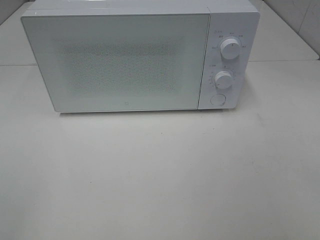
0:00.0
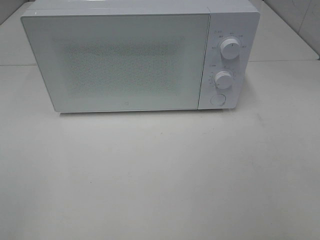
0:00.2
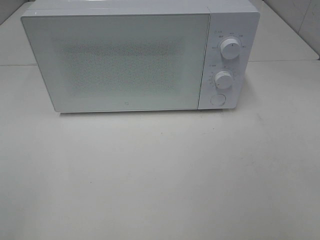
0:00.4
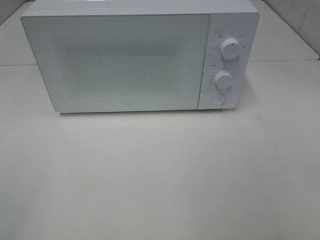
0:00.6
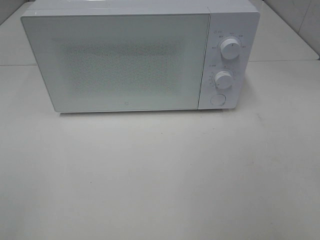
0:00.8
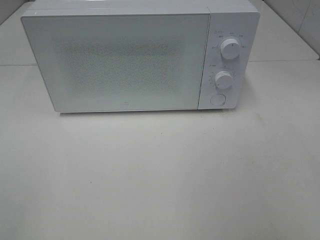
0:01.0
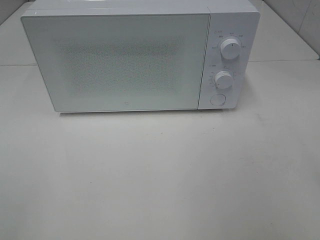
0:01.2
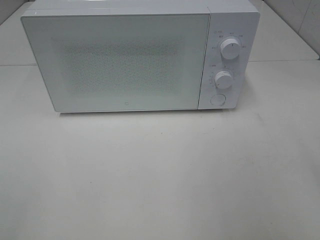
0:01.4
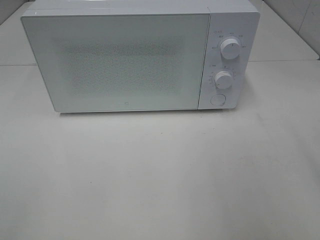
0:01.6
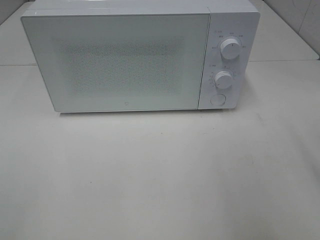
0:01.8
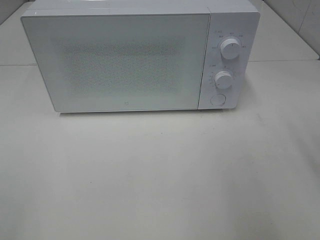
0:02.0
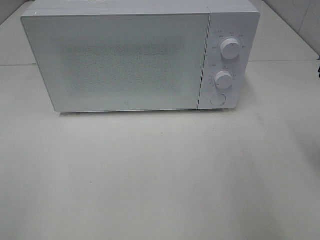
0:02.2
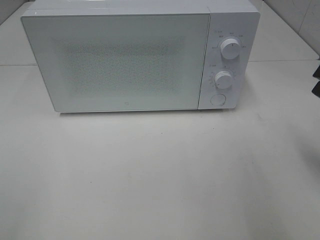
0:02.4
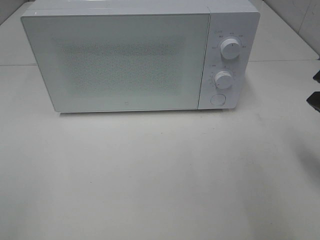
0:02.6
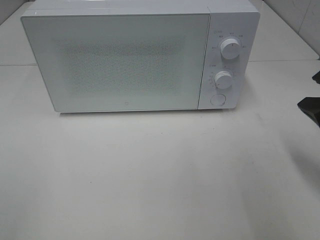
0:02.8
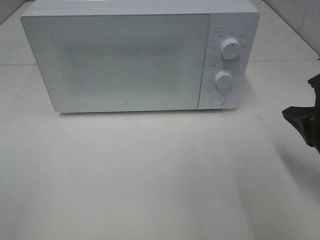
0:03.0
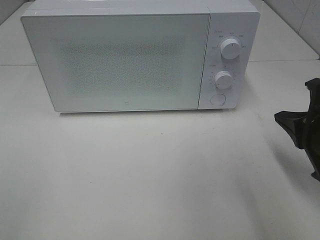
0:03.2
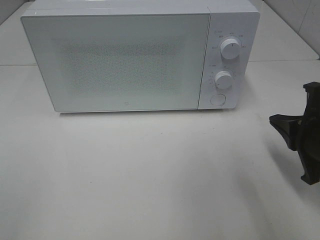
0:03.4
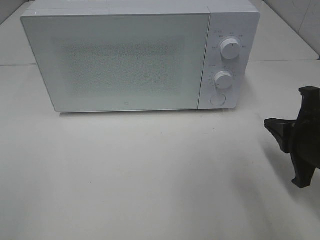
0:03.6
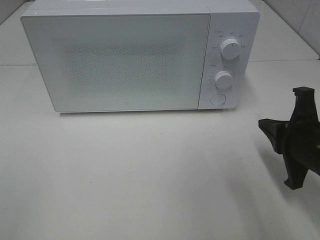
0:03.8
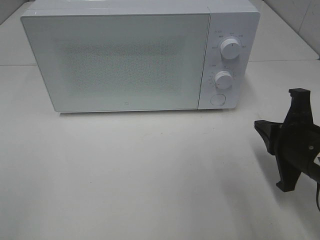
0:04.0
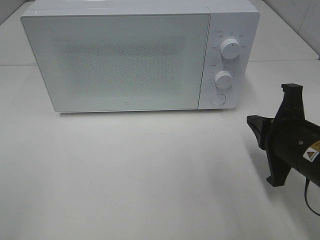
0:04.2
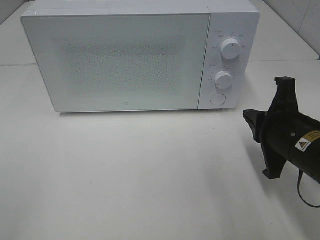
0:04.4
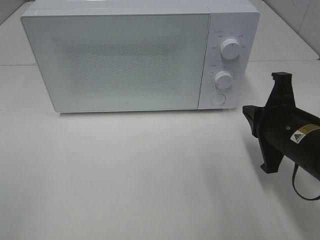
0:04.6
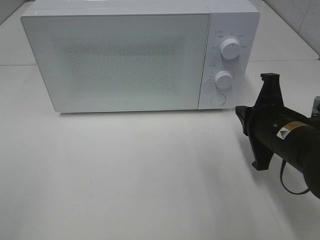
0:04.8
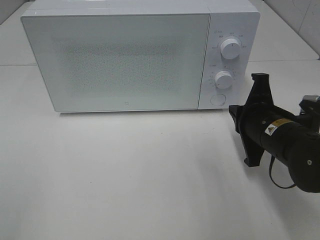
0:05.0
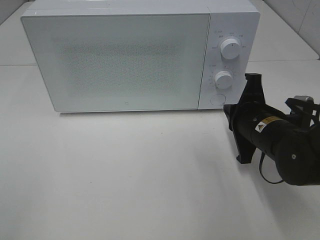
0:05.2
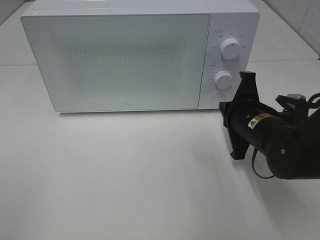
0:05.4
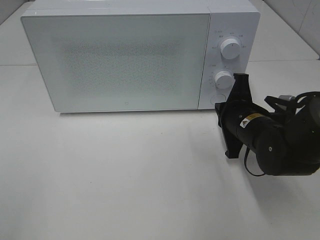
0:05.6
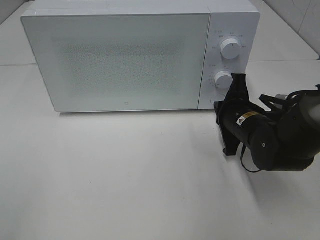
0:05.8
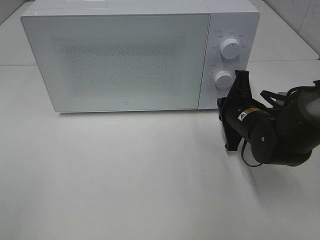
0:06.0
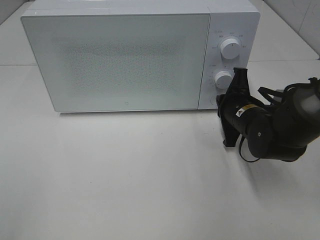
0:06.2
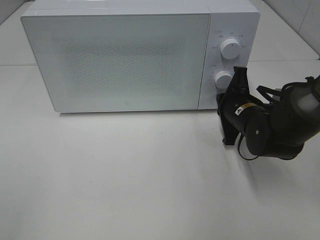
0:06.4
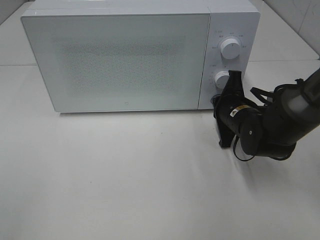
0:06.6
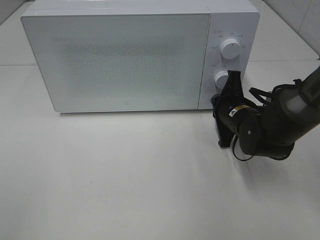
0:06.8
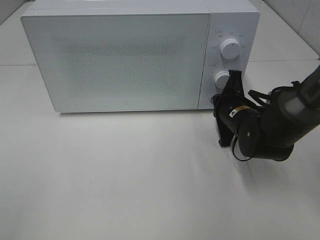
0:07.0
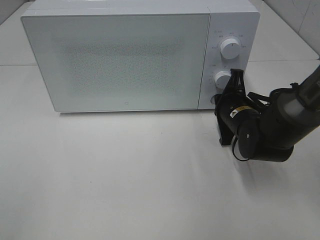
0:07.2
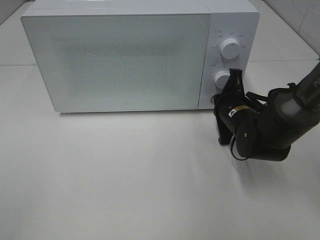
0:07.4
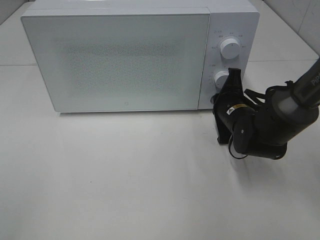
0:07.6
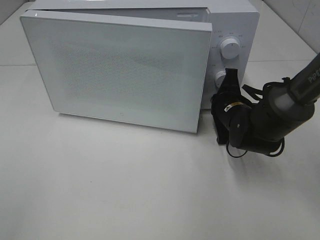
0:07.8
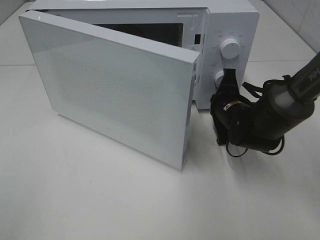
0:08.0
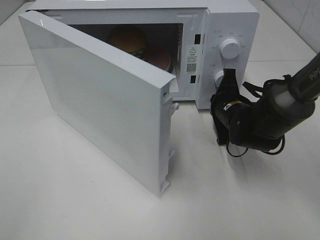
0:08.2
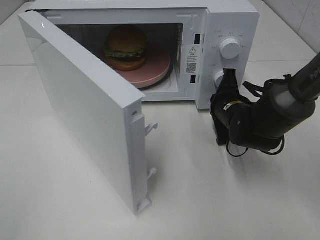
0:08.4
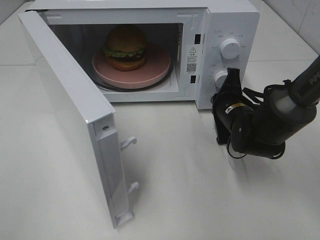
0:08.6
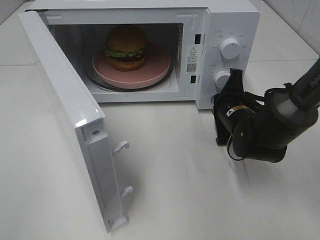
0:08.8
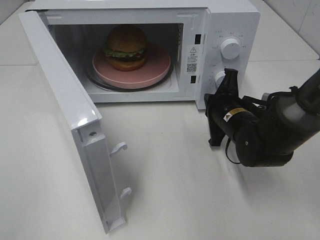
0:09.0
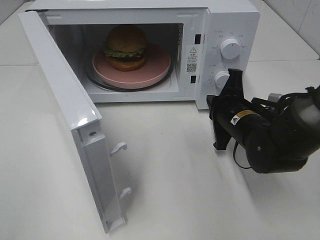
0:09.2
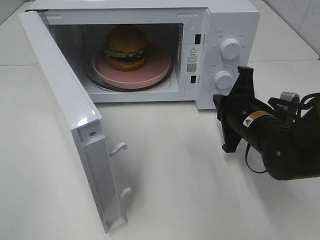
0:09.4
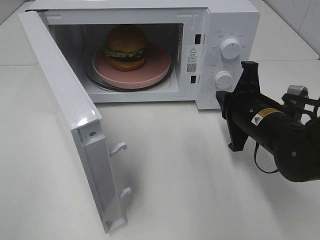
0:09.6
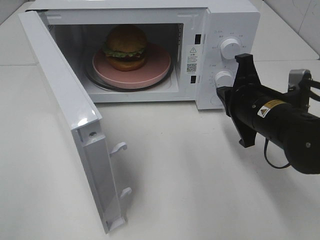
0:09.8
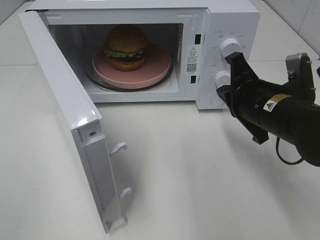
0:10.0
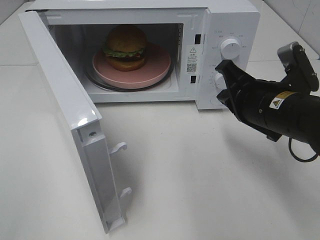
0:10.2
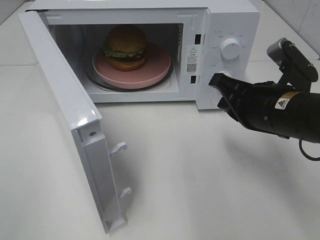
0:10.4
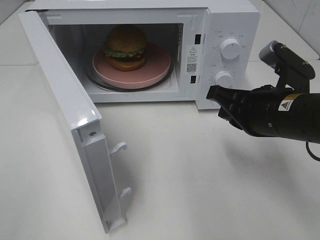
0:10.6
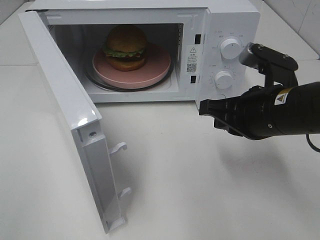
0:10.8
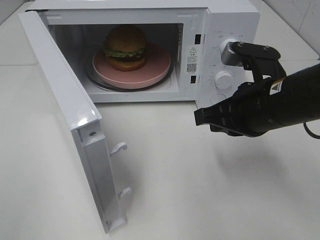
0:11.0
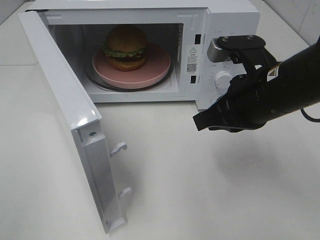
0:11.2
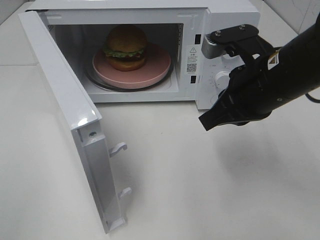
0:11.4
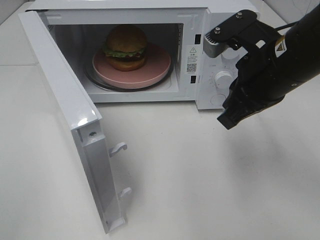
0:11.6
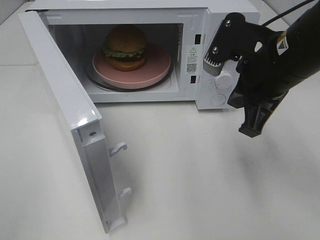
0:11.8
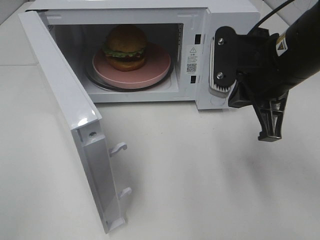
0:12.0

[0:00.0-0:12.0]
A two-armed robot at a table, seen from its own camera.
Task of the whole recording: Heat the burger.
Step, 0:00.0 to 0:09.0: Right hand: press the switch.
0:01.6 to 0:03.0: The right gripper heads downward and forward, covering about 15 cm, and closes its fingers.
0:03.0 to 0:04.4: The right gripper goes about 5 cm to the left.
0:04.4 to 0:06.0: The right gripper heads forward and downward, covering approximately 10 cm.
0:06.0 to 0:07.6: There are only small adjustments of the grippers.
0:09.0 to 0:10.4: The right gripper is displaced upward and backward by roughly 15 cm.
0:10.4 to 0:12.0: The right gripper goes some 5 cm upward.

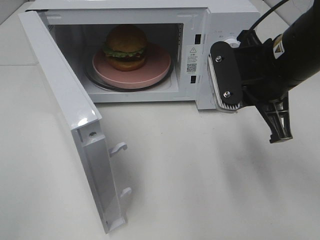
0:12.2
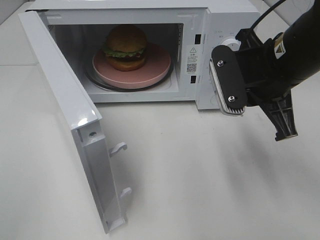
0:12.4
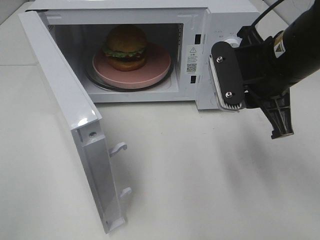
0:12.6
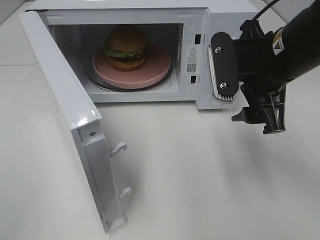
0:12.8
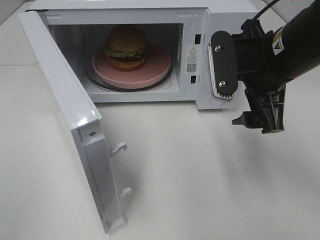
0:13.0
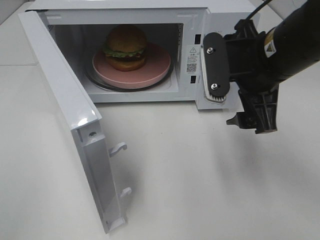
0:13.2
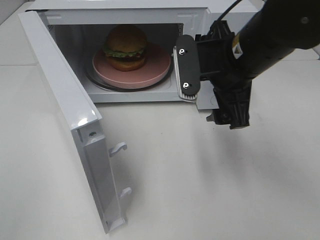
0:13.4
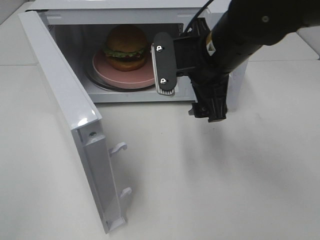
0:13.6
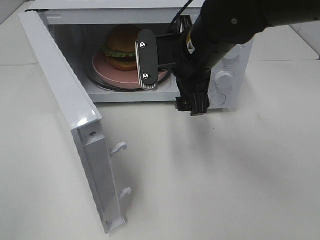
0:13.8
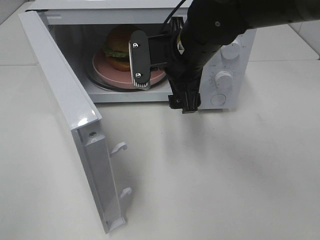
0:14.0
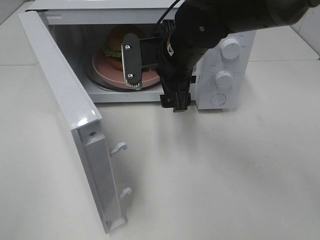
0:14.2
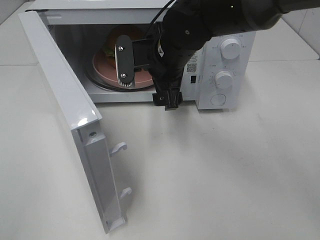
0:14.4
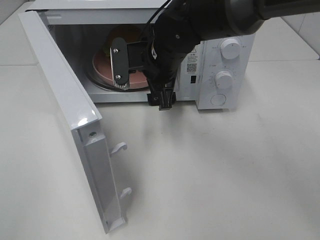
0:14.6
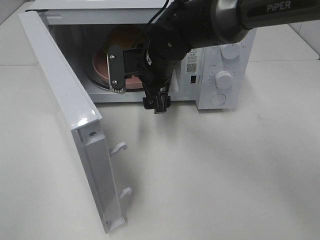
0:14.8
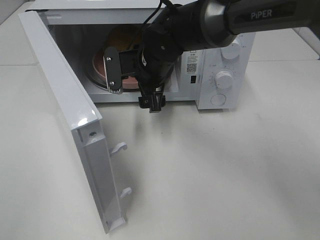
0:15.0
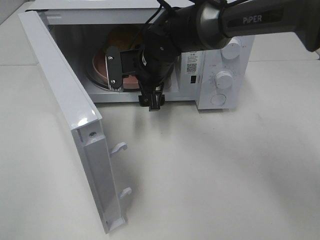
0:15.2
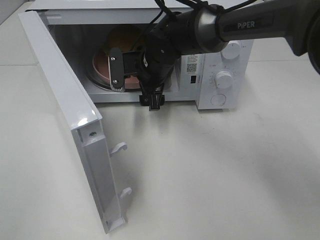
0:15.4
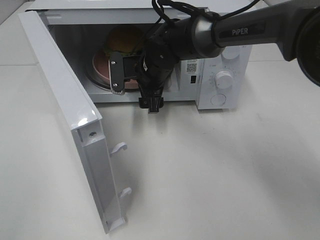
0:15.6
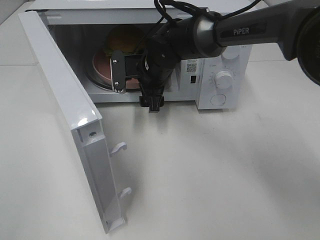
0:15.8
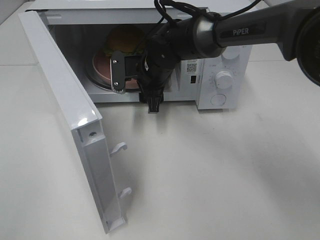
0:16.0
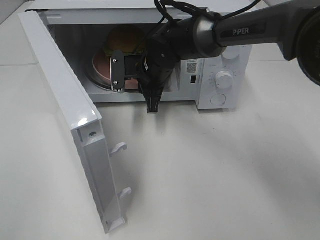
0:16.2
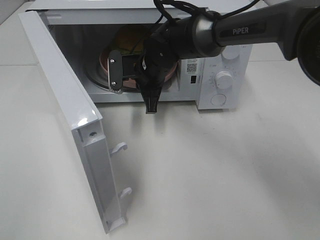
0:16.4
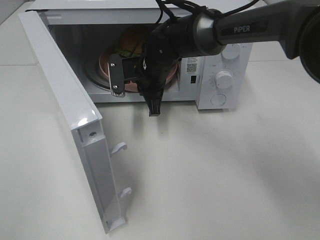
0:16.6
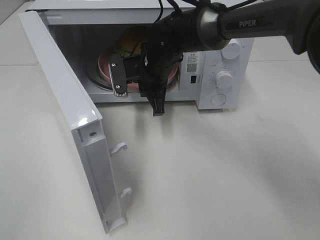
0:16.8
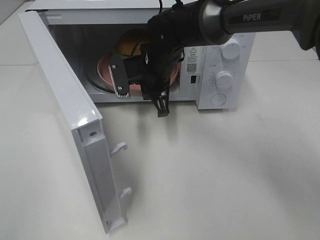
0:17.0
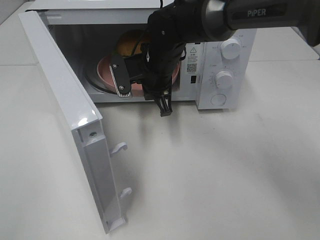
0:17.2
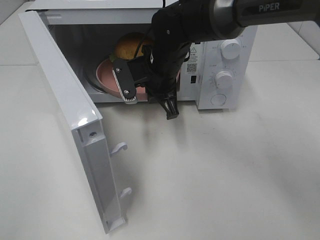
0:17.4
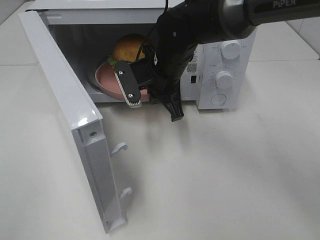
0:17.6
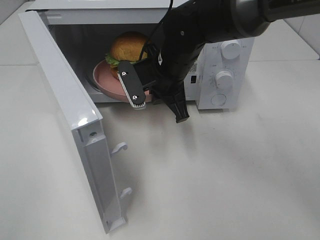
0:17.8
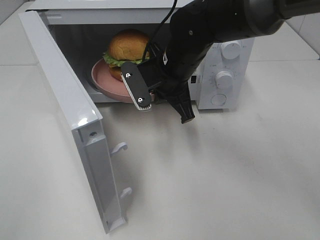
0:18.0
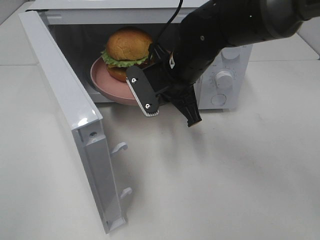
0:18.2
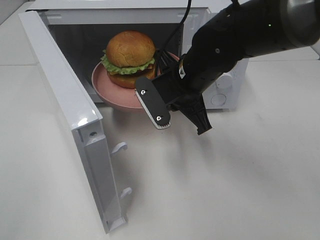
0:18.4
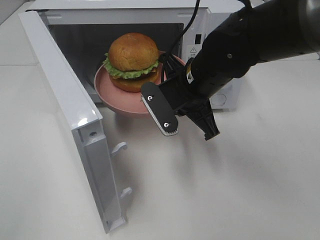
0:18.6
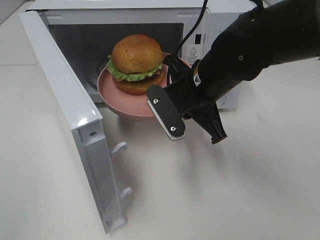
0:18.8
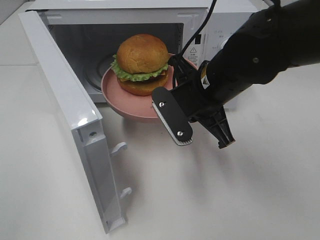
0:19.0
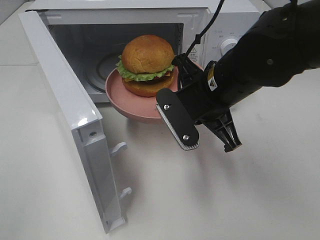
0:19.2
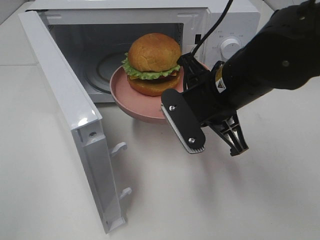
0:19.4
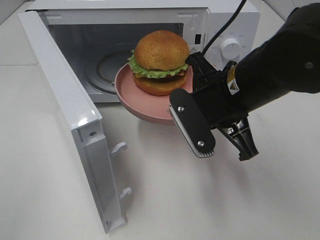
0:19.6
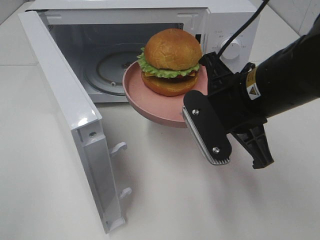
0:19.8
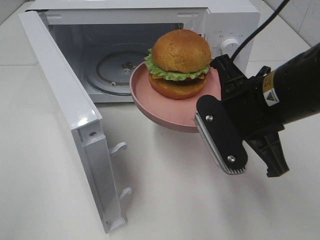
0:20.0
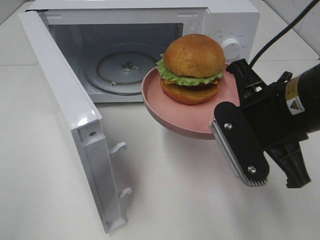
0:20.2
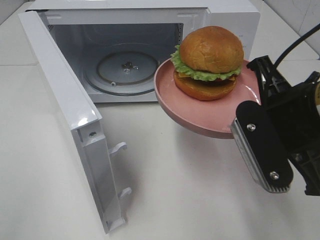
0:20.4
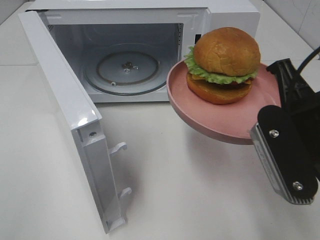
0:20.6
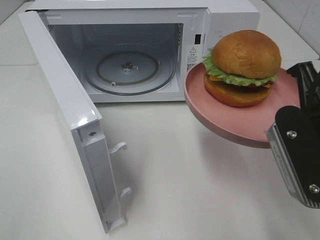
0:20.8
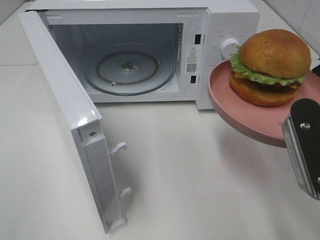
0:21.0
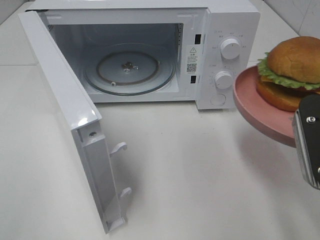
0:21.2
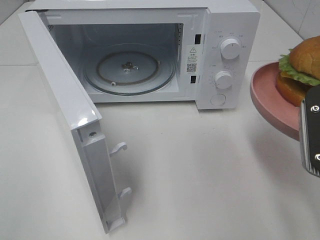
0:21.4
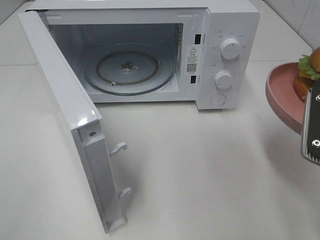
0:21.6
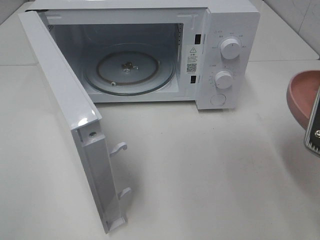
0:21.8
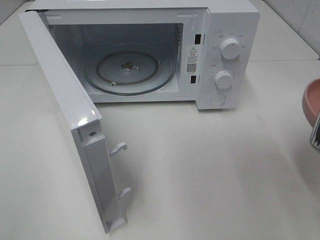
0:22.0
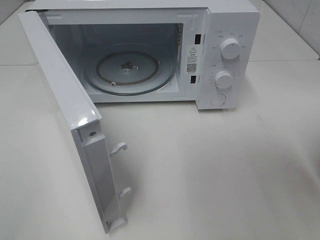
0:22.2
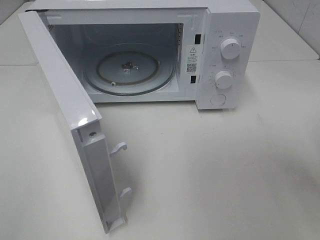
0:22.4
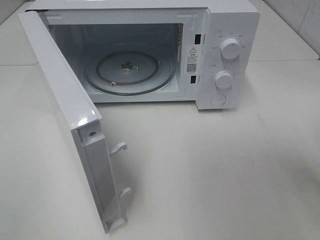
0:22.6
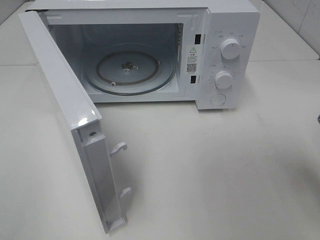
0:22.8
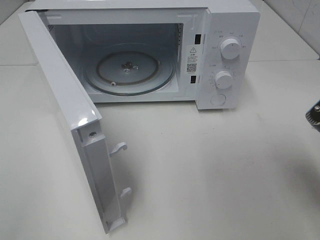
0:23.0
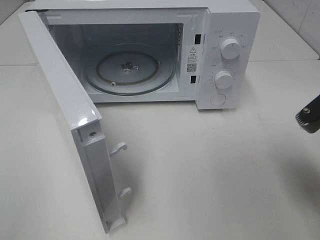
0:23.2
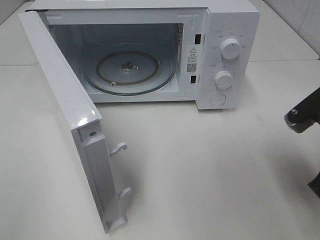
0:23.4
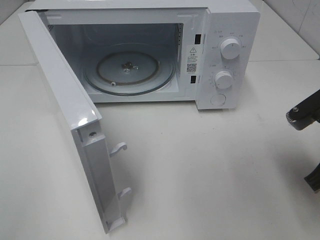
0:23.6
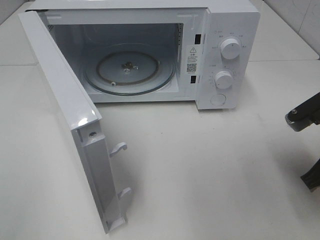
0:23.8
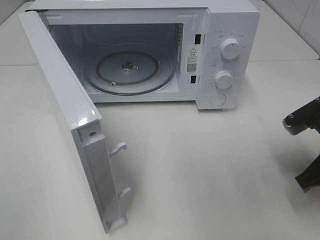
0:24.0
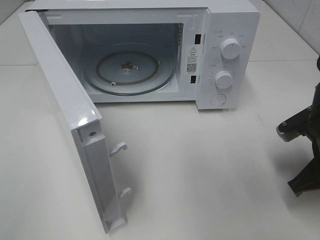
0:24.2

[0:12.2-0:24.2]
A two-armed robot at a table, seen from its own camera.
Task of the whole recording: Heat the burger.
Step, 0:12.2 to 0:16.2: Right hand: grab the plate with the hamburger.
0:12.2 to 0:13.8: The right gripper travels to the left and forward by roughly 10 cm, and opens up.
0:13.8 to 0:15.2: The right gripper is displaced forward, downward and to the left by about 15 cm.
0:15.2 to 0:16.6: The right gripper closes its fingers.
0:16.6 to 0:18.2: The right gripper moves backward, about 10 cm.
0:18.2 to 0:19.8: The right gripper is displaced backward and to the right by approximately 15 cm.
0:19.8 to 0:21.2: The right gripper moves to the right and backward, approximately 15 cm.
0:22.6 to 0:24.2: The right gripper goes some 15 cm downward and forward.
